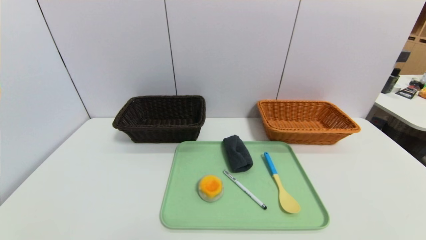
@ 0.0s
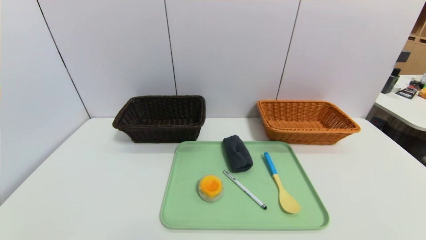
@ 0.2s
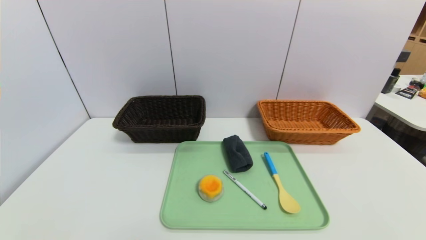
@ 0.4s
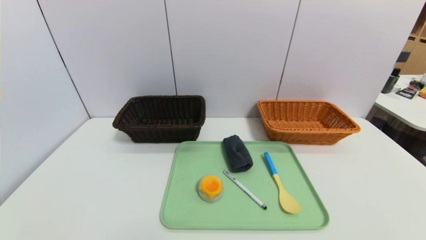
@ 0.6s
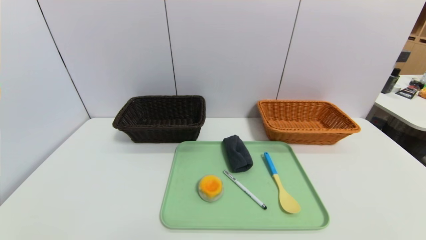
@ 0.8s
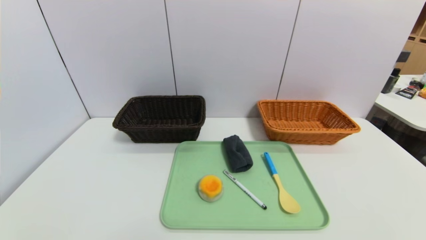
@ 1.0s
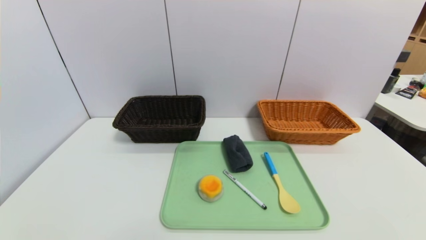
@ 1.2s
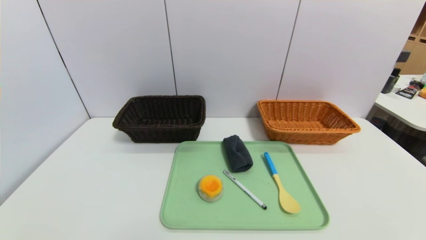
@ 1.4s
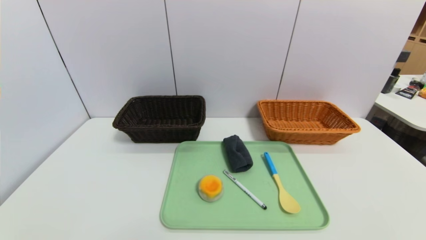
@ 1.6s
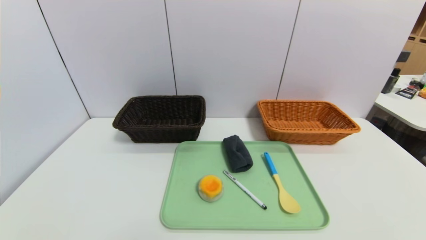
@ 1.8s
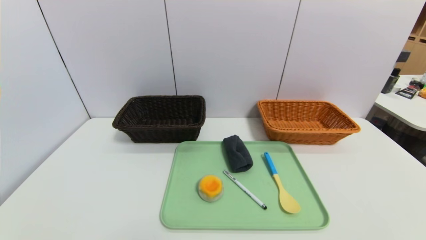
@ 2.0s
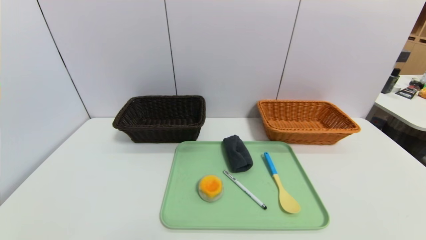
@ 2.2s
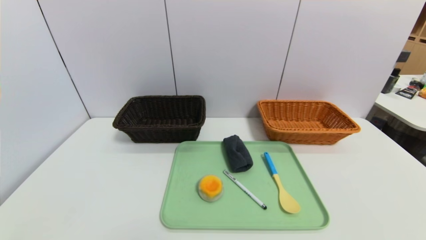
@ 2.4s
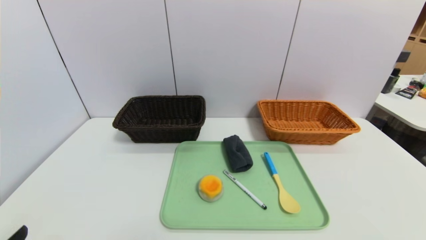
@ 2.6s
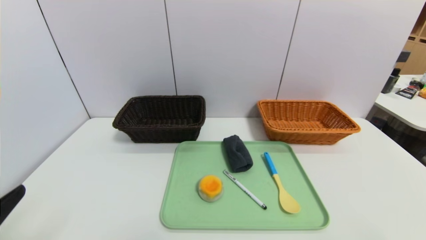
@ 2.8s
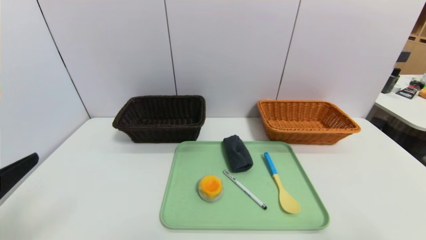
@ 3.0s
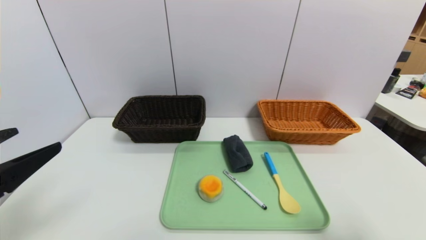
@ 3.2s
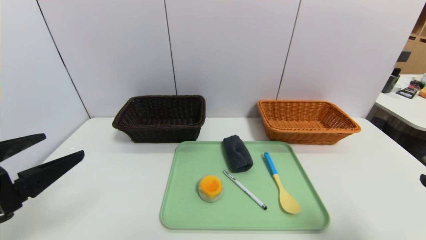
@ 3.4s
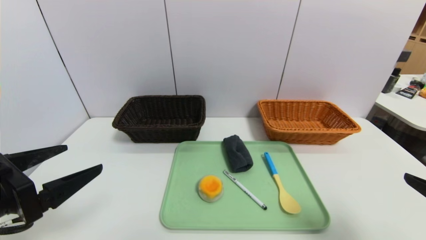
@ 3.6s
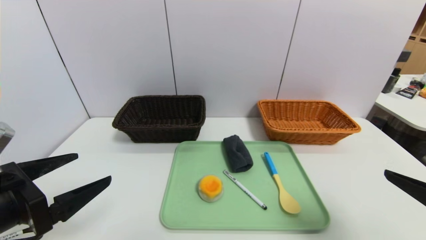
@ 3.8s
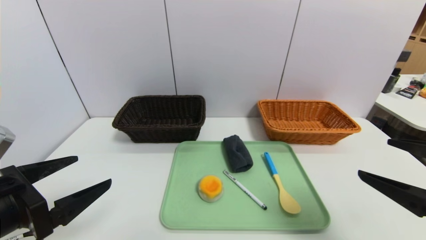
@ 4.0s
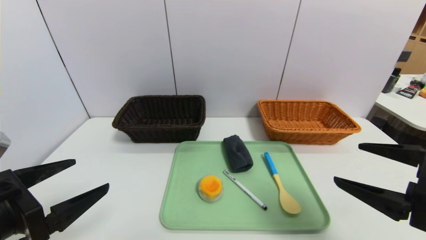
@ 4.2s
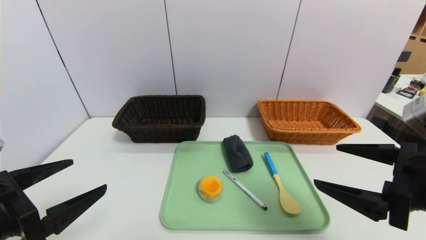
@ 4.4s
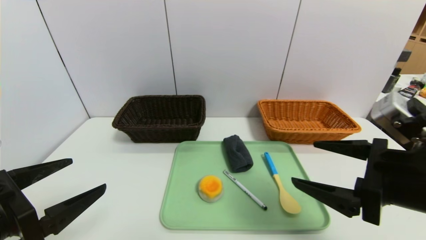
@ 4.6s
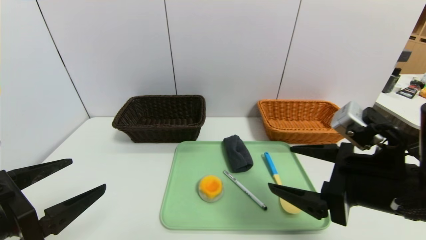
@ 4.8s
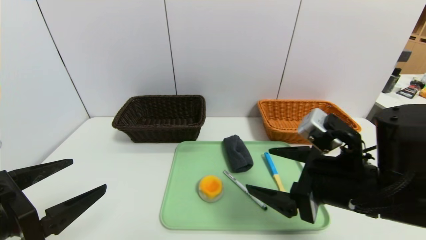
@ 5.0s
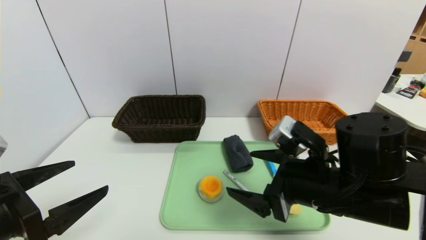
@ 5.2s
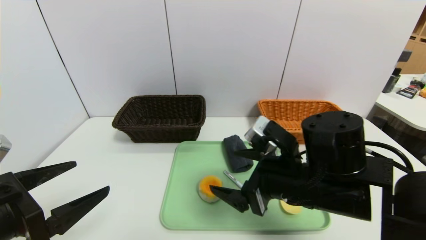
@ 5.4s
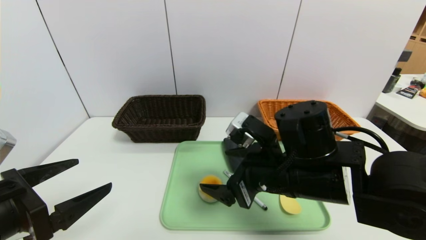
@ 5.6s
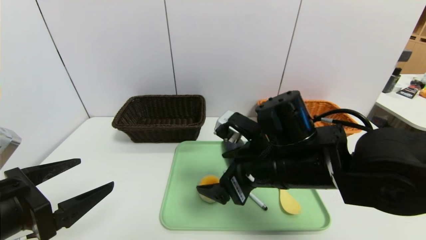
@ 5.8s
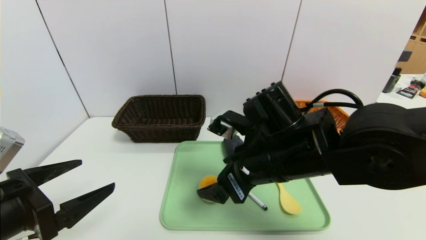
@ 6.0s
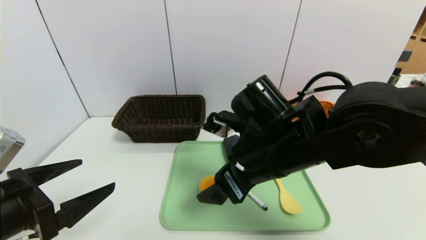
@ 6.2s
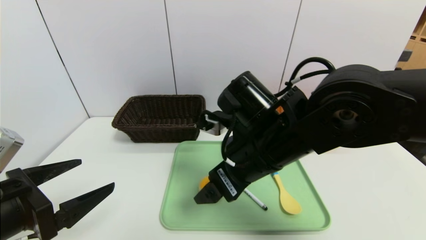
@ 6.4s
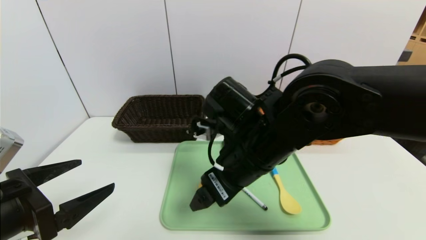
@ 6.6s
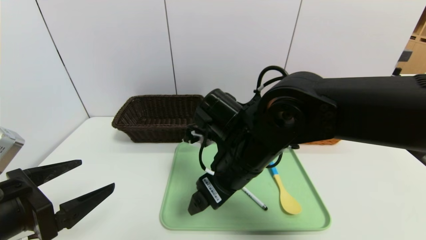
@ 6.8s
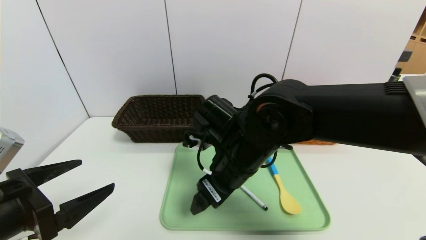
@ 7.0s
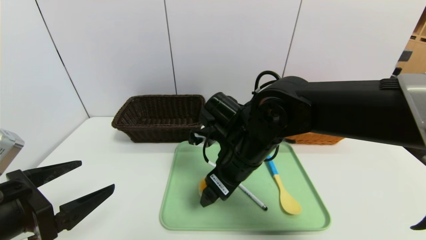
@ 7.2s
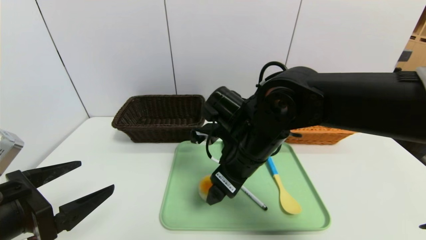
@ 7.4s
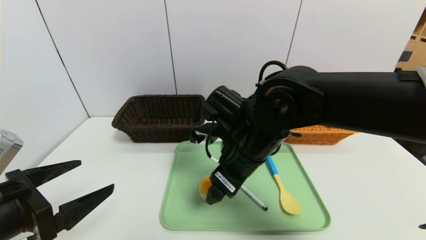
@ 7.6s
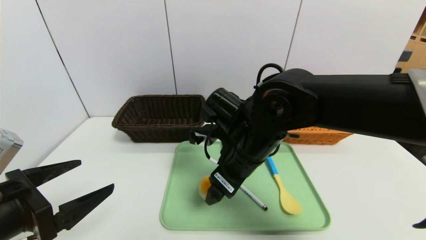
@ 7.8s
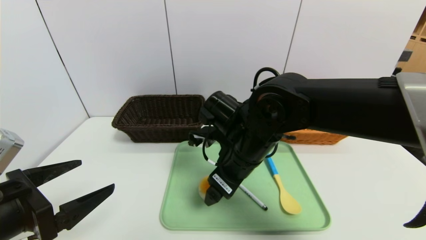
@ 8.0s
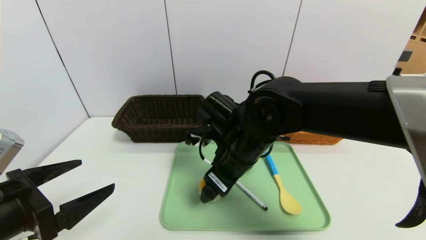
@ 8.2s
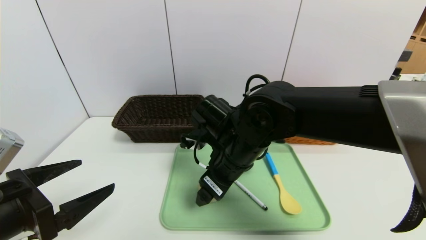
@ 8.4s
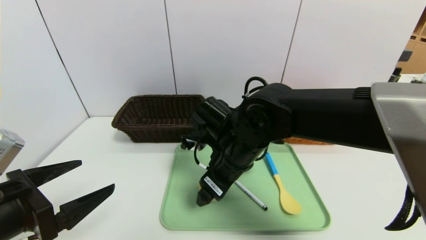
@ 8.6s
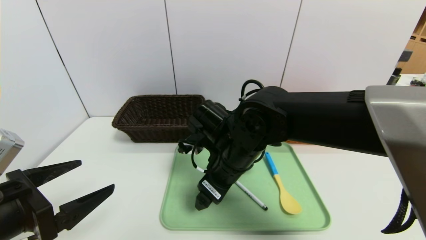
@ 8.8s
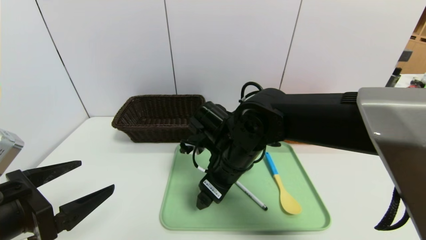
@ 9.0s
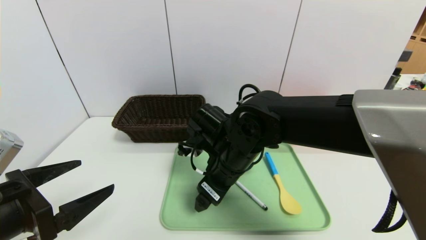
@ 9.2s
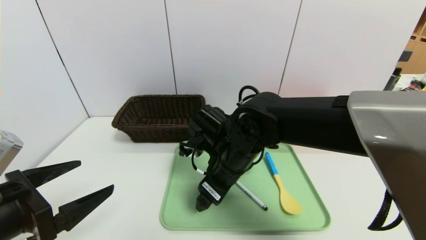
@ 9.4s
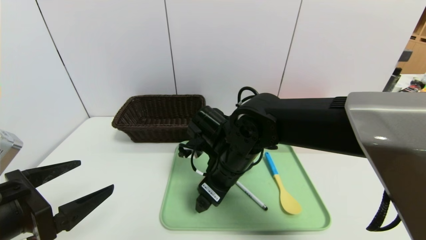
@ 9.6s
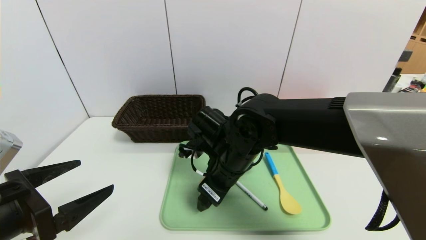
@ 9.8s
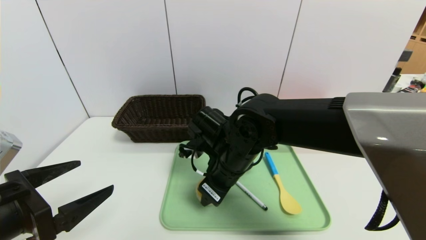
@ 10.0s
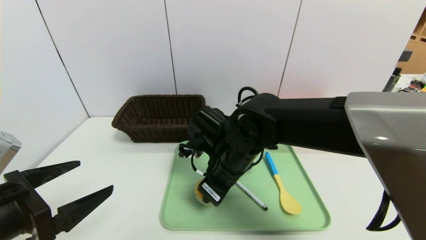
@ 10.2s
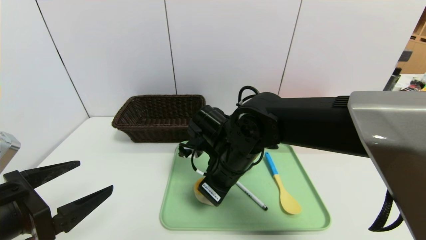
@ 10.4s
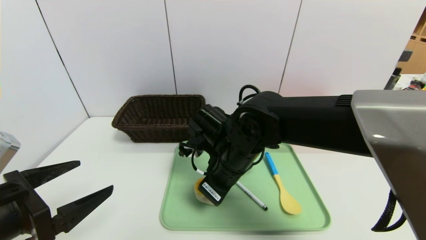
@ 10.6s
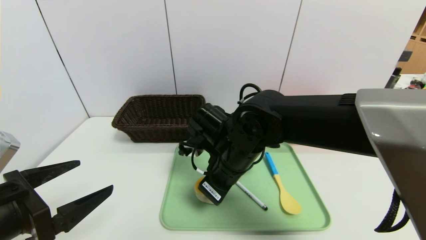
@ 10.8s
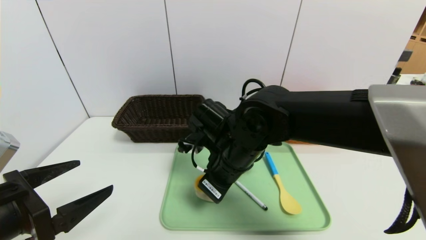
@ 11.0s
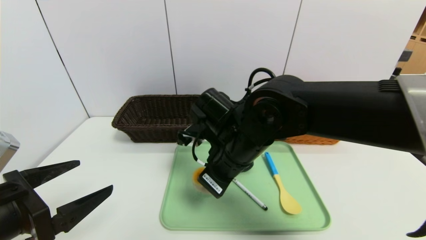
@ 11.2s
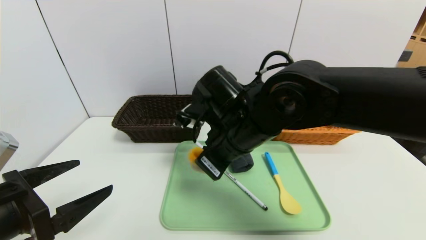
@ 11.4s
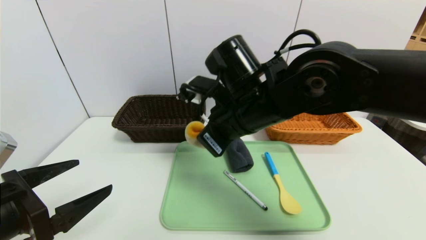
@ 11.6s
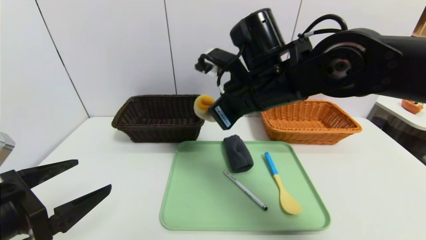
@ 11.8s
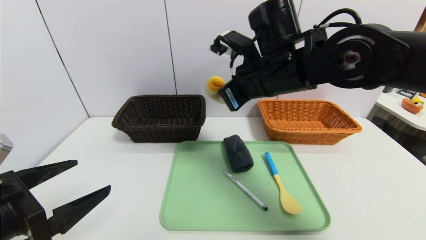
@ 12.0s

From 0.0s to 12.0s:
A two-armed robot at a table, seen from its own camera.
Task of the whole recording: place the food in the right basket with the right gripper, and place the non food items in the left basket with the left gripper.
From 0.0s to 1.6s: Both grippers stay put.
From 1.6s to 3.0s: The left gripper shifts some 20 cm upward and forward.
From 3.0s to 4.4s: The right gripper is displaced forward and to the left by about 15 cm. The left gripper ends up about 5 cm from where it was.
From 4.4s to 6.0s: The right gripper heads to the left and forward, covering approximately 20 cm.
From 7.6s to 9.0s: The grippers move only a little.
From 9.0s to 10.4s: The right gripper closes its fingers.
From 10.4s to 12.0s: The right gripper travels upward and to the right by roughly 15 cm.

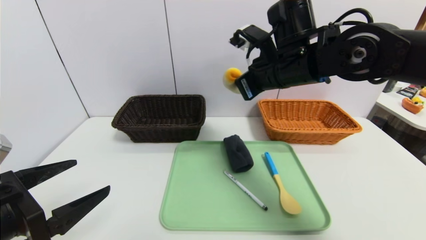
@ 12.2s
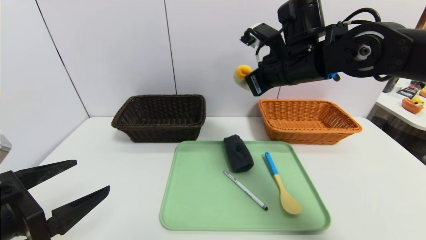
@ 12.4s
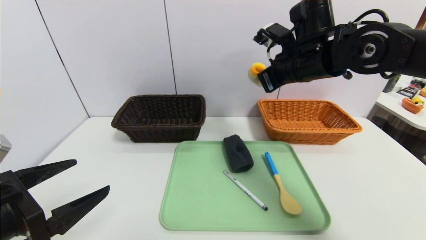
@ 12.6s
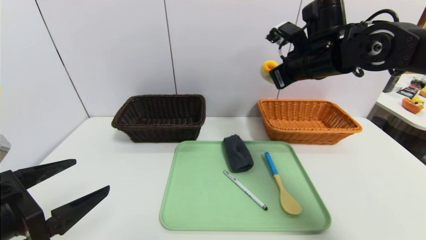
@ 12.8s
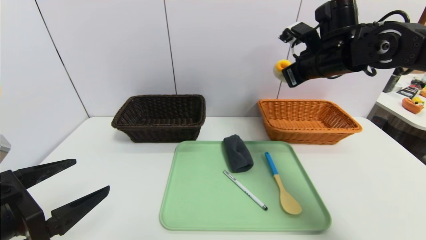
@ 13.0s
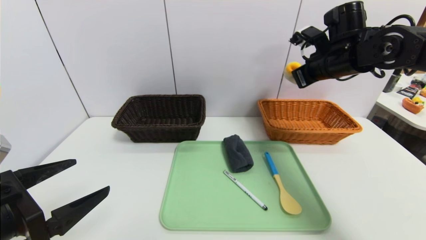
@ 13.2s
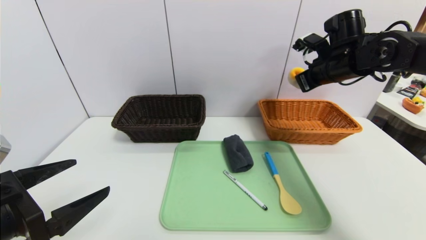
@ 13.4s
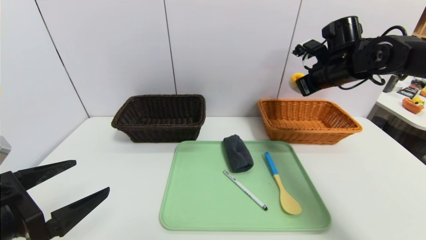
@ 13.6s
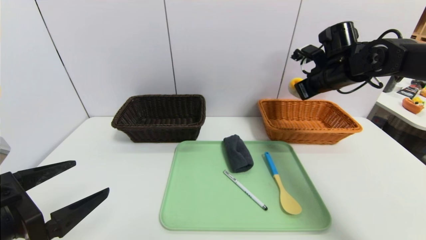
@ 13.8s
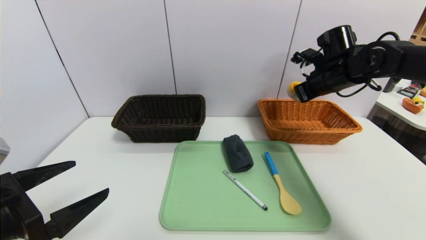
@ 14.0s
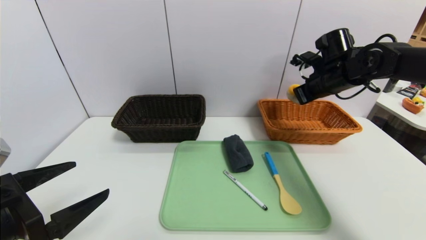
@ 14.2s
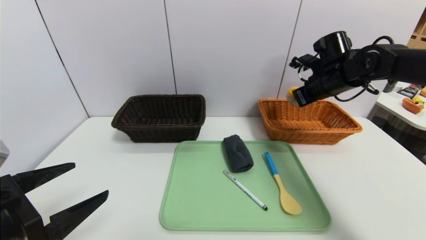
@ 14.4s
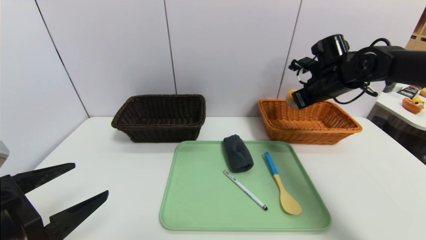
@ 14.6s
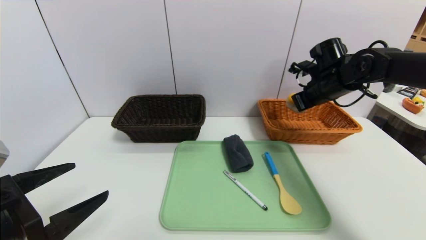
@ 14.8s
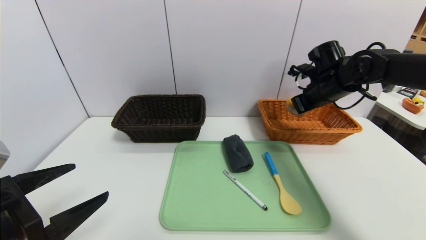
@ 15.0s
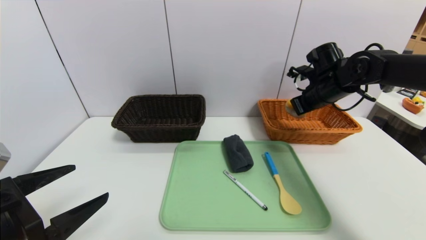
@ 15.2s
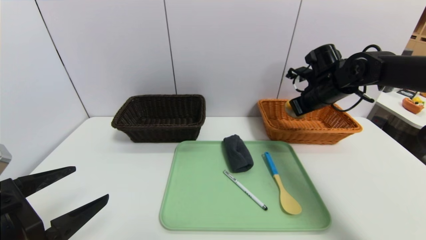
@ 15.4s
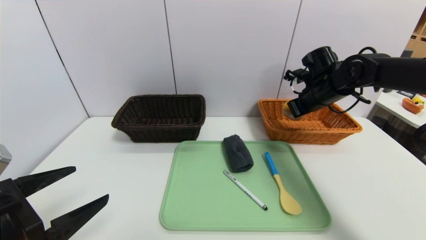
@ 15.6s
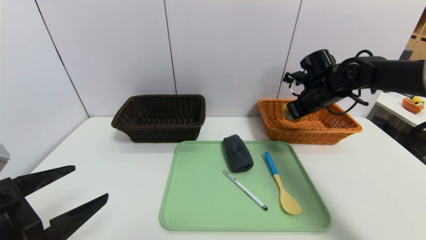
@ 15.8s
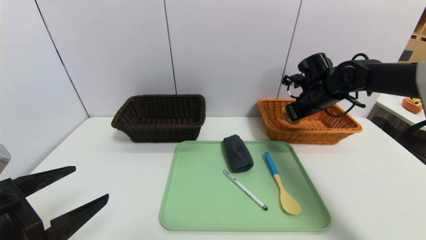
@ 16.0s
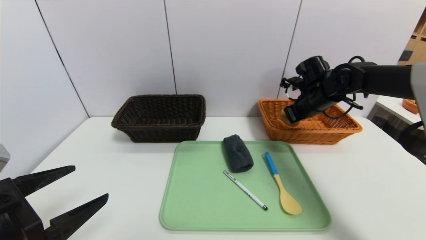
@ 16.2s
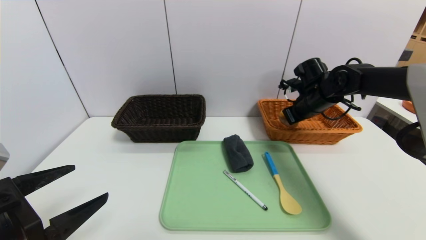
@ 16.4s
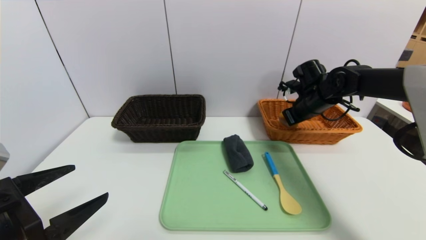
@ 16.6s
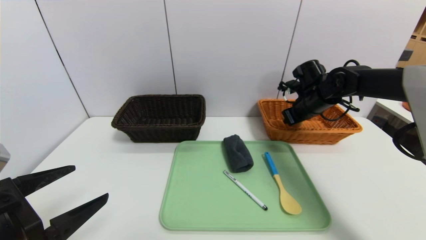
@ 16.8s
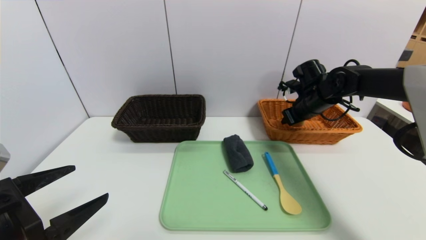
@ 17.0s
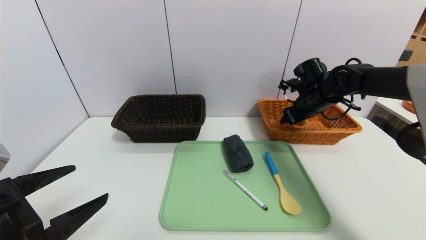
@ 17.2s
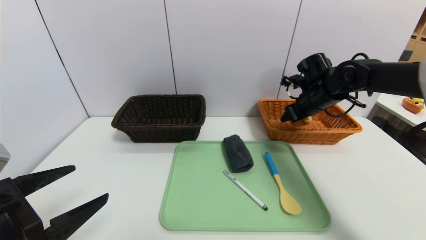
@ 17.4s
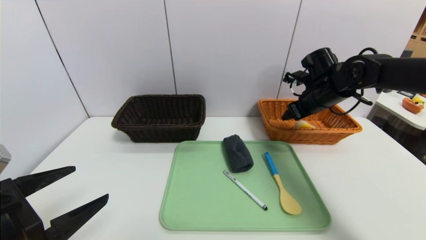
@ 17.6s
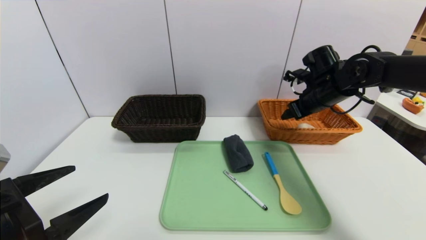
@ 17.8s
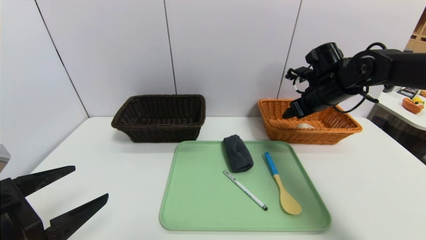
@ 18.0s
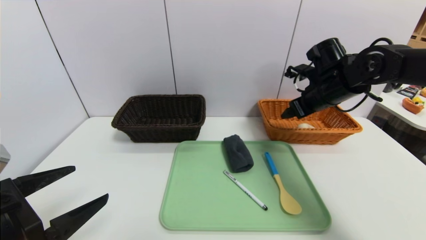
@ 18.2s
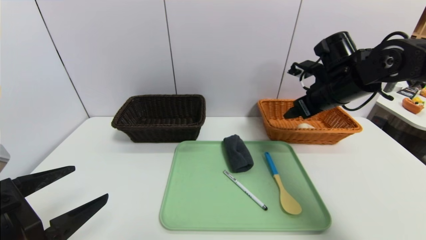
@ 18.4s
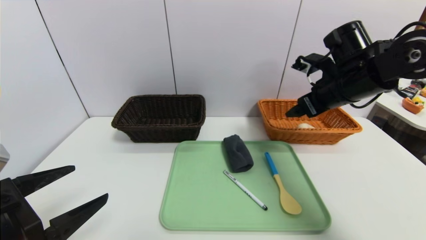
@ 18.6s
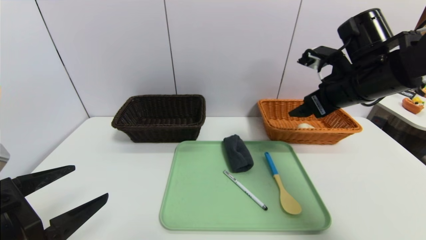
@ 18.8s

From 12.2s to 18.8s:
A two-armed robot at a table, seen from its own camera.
Task of the whole recording: place the food in the right basket with the right gripper, and place the non food items in the left basket with the left gripper.
Step, from 12.2s to 17.8s: Grasp the egg yolk pastry and put it in the right basket.
From 12.2s to 13.8s: The right gripper shifts about 15 cm to the right and forward.
From 13.8s to 15.4s: The grippers move only a little.
From 15.4s to 17.2s: The right gripper opens.
From 17.2s to 18.8s: The right gripper moves backward and upward, about 15 cm.
